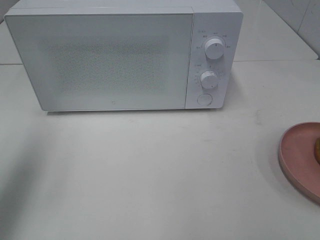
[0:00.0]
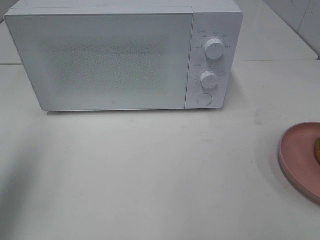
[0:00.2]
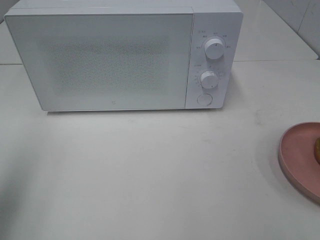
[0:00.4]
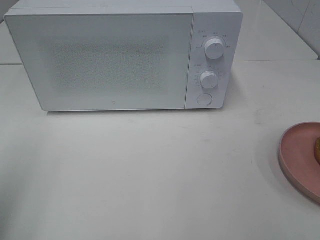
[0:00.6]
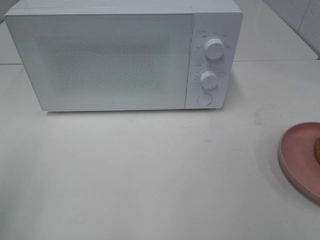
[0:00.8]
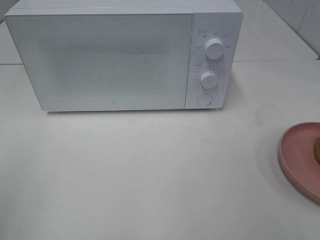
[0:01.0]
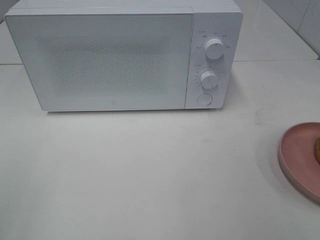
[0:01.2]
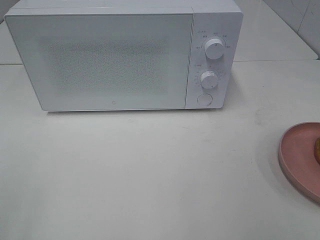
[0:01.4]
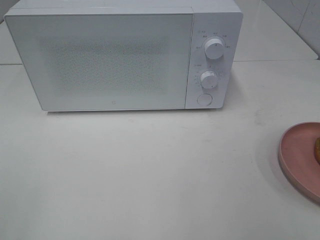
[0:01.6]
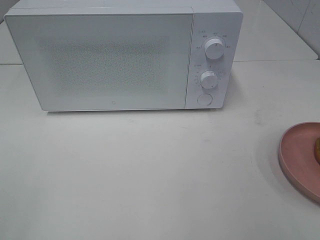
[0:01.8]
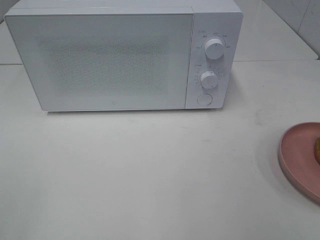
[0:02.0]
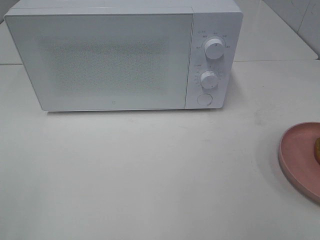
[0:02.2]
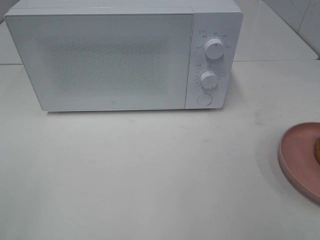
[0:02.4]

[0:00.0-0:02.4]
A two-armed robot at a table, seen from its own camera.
Task of the whole recording: Heat the burger.
0:00.0 to 0:01.2: The left gripper moves backward, some 20 cm.

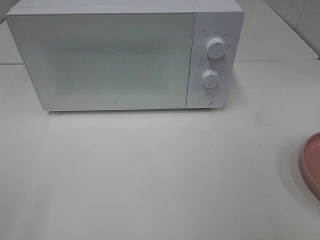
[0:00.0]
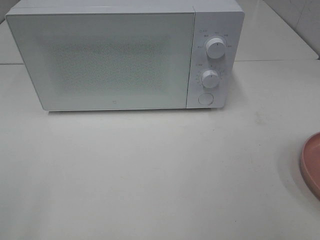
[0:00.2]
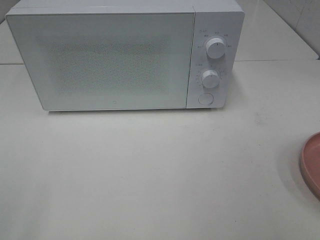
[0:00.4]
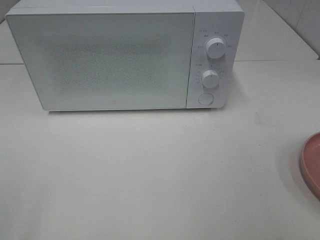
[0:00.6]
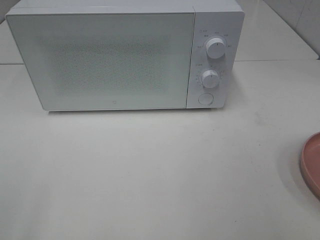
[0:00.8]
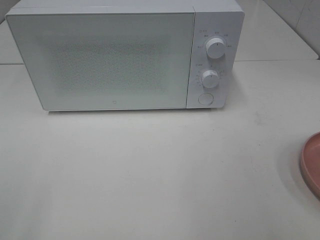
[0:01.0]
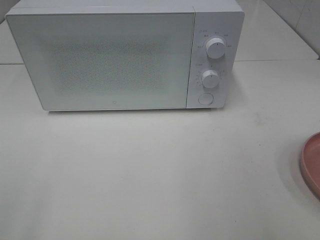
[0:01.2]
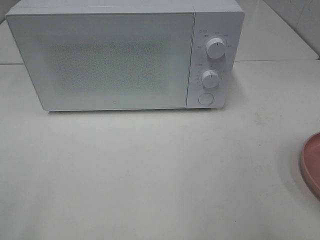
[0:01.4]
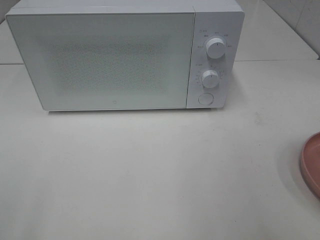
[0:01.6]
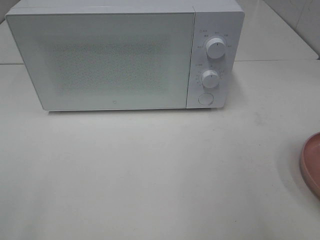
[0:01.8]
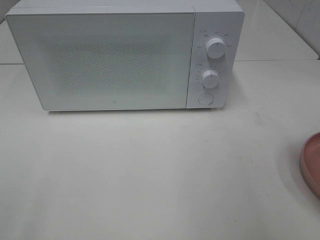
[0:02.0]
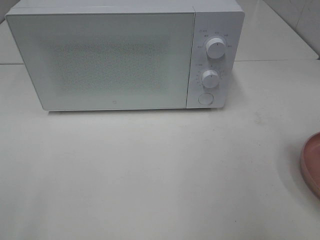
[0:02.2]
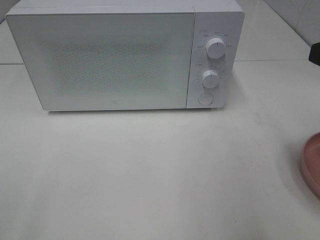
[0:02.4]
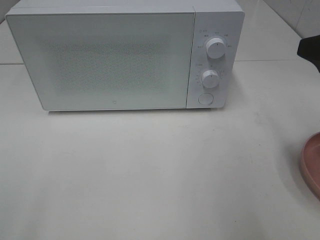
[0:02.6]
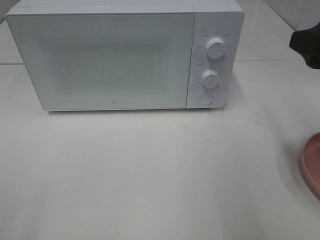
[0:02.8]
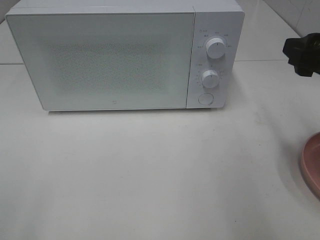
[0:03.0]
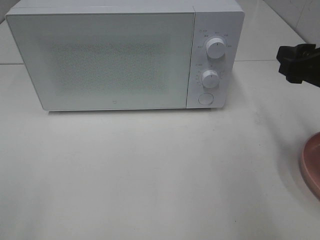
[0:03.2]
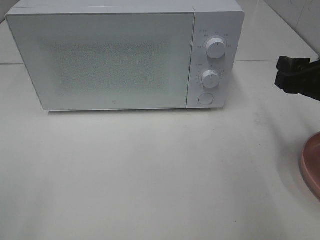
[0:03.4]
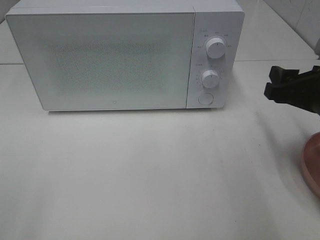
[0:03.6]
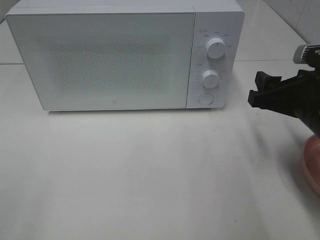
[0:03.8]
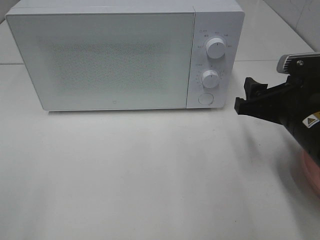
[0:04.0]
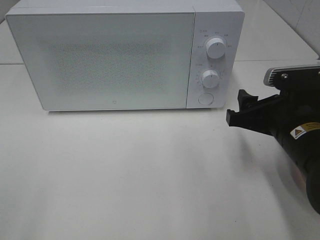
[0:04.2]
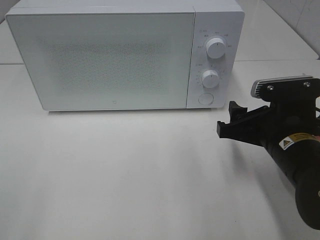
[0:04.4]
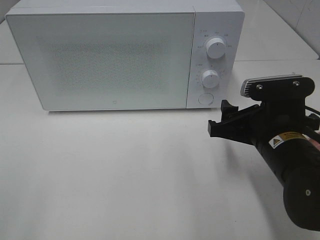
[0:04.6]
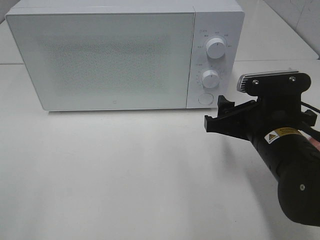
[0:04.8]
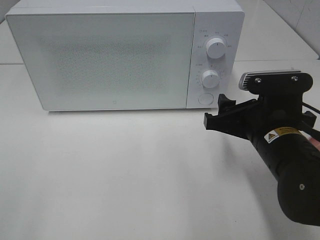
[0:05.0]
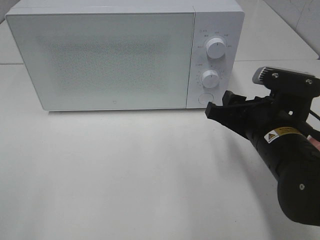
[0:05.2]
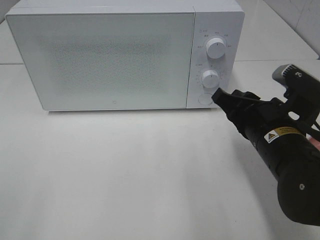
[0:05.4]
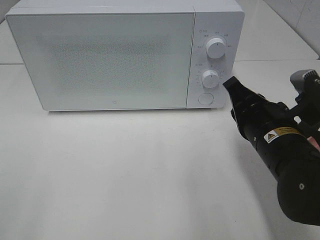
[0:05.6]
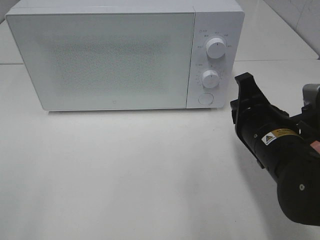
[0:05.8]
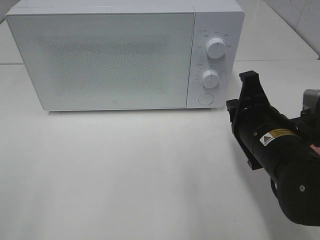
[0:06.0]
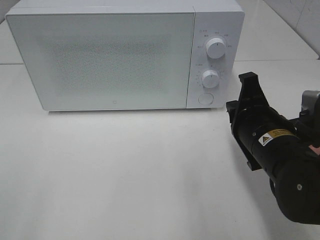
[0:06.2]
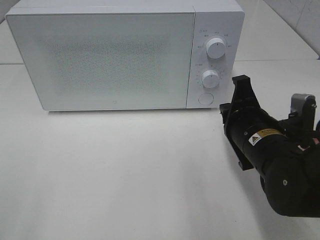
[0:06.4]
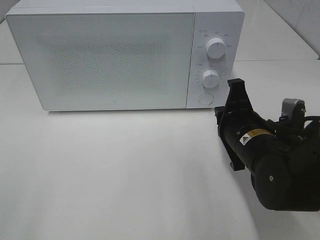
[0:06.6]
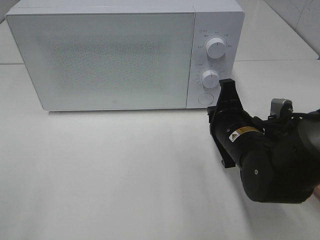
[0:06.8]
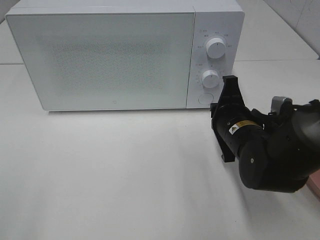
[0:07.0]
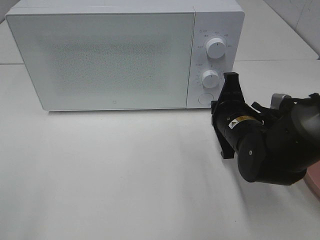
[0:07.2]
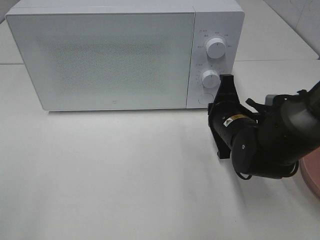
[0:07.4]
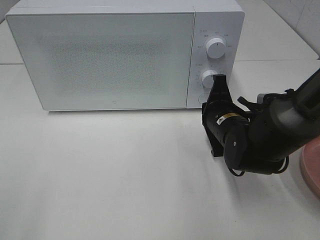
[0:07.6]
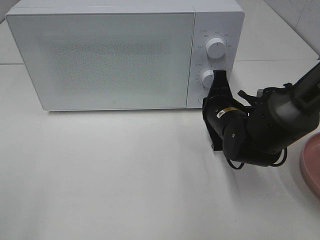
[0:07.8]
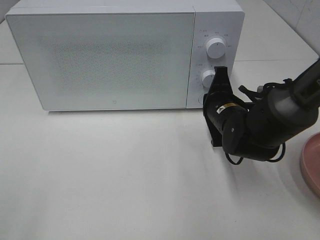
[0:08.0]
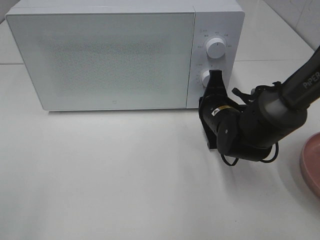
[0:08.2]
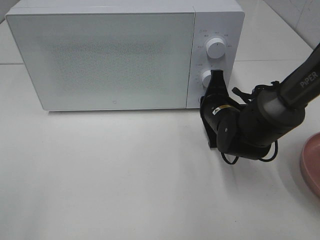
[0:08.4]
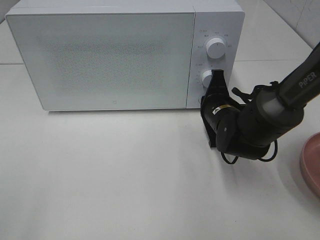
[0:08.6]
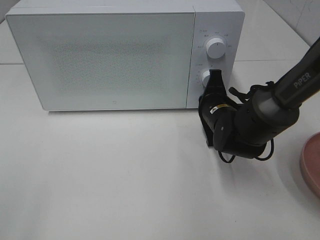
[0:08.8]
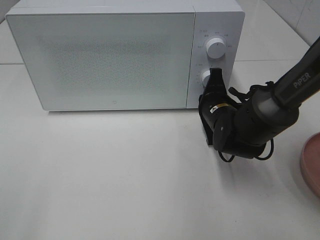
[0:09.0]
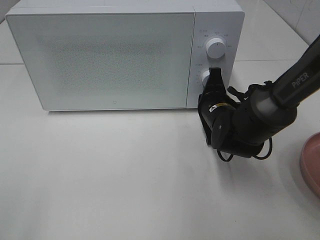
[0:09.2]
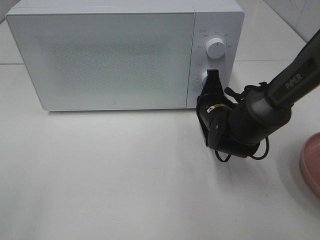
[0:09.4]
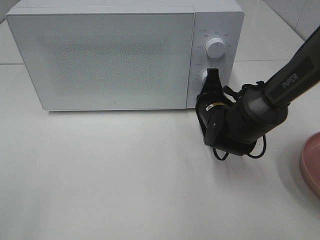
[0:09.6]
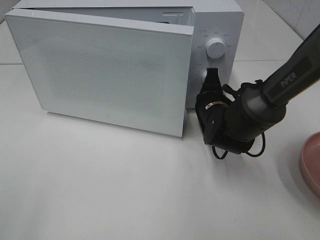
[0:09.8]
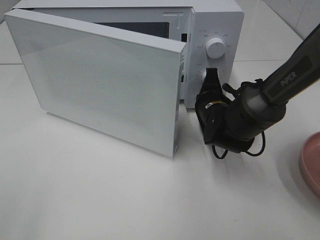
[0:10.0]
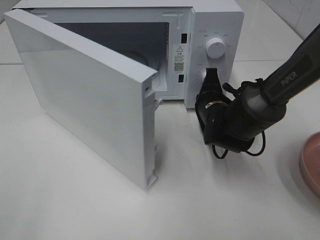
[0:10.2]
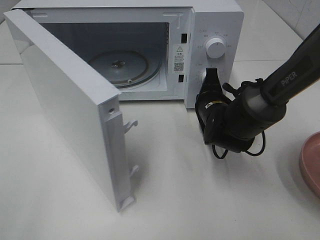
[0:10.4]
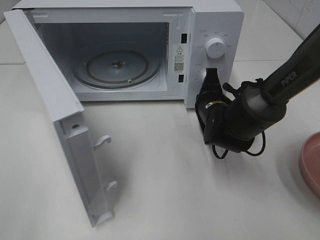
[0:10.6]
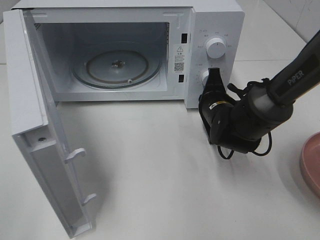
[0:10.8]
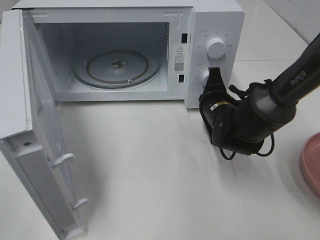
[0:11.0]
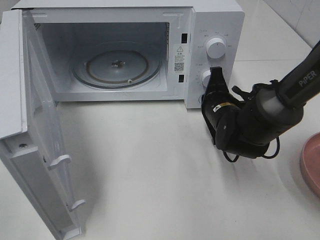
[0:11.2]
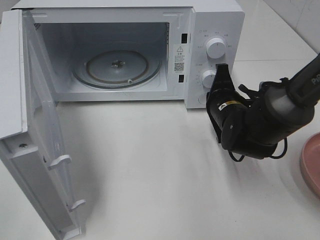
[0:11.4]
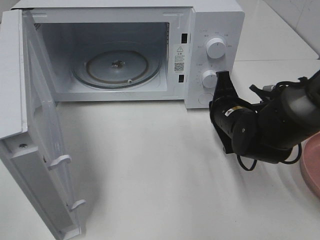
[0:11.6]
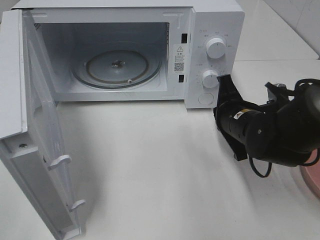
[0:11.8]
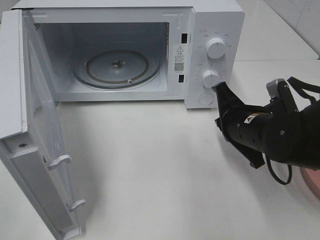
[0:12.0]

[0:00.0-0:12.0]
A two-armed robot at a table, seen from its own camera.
Task of the whole recording: Heat the burger.
Step, 0:00.0 to 0:11.2: Right hand: press the switch.
0:01.6 to 0:03.0: The right gripper moves forward and downward, approximately 15 cm.
0:03.0 to 0:04.4: The right gripper moves downward and to the left, roughly 15 cm.
0:04.4 to 0:06.0: The right gripper closes its fingers.
0:06.0 to 0:07.6: The right gripper moves forward and downward, roughly 10 cm.
0:07.6 to 0:09.0: The grippers make only small movements.
0:10.4 to 0:12.0: The right gripper heads backward, covering about 10 cm.

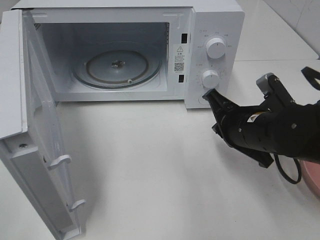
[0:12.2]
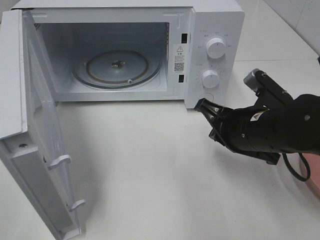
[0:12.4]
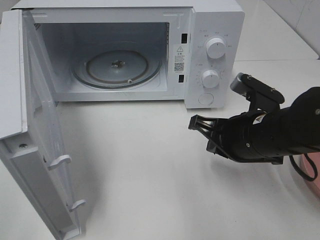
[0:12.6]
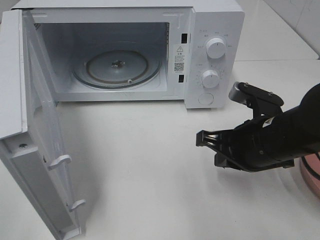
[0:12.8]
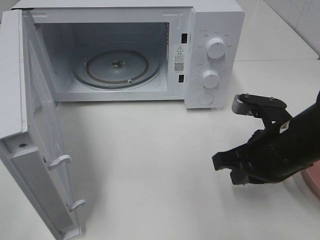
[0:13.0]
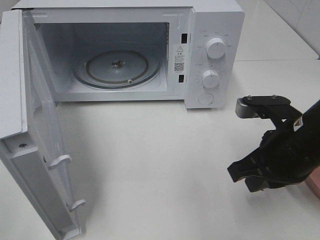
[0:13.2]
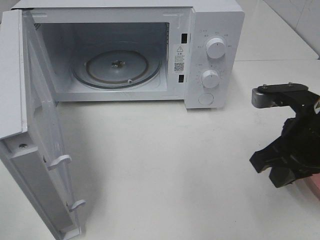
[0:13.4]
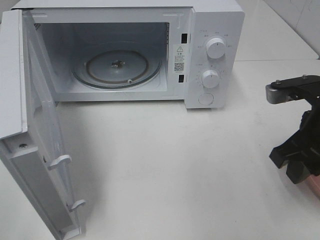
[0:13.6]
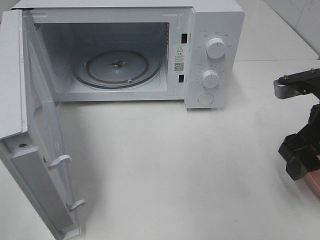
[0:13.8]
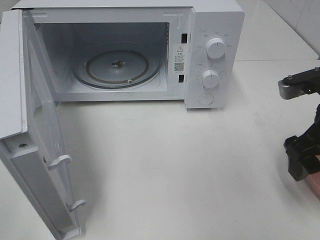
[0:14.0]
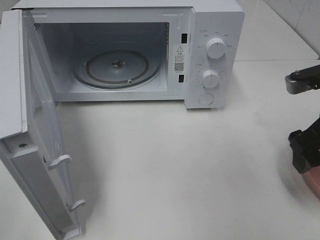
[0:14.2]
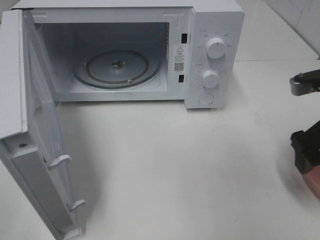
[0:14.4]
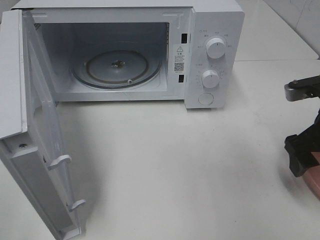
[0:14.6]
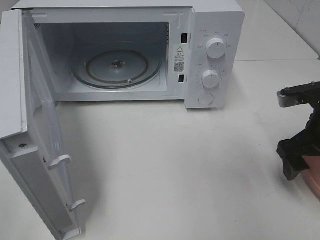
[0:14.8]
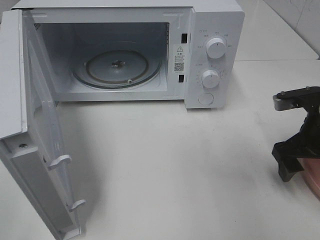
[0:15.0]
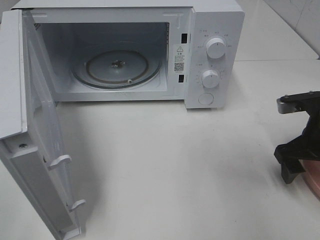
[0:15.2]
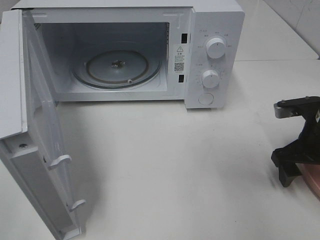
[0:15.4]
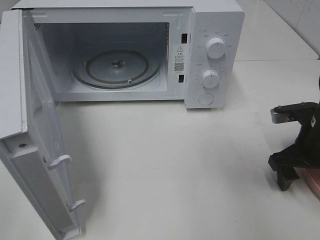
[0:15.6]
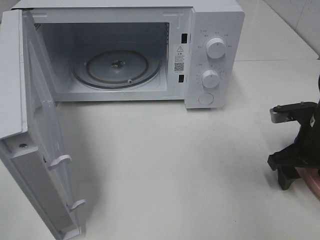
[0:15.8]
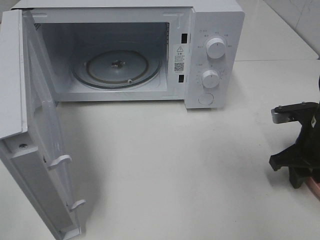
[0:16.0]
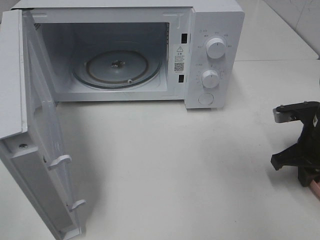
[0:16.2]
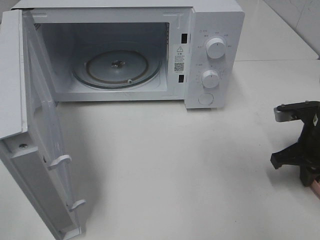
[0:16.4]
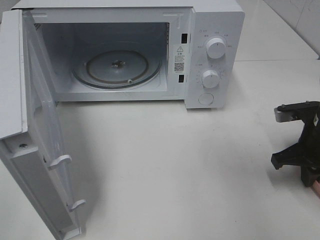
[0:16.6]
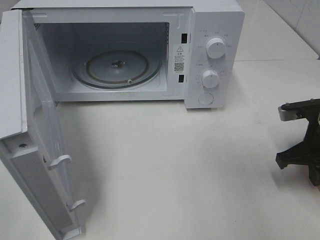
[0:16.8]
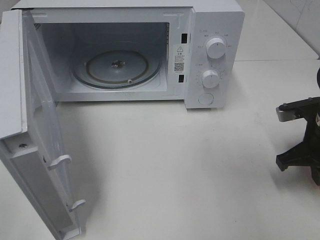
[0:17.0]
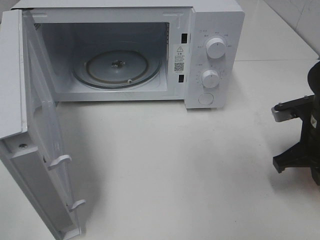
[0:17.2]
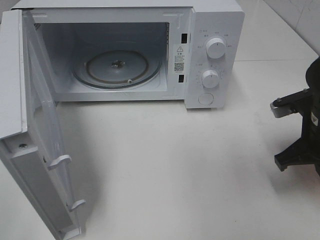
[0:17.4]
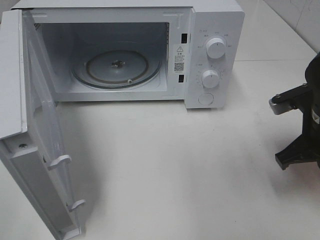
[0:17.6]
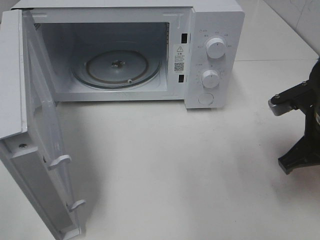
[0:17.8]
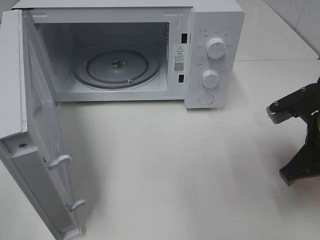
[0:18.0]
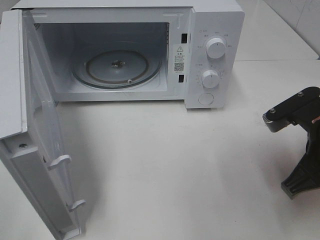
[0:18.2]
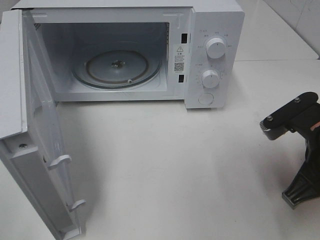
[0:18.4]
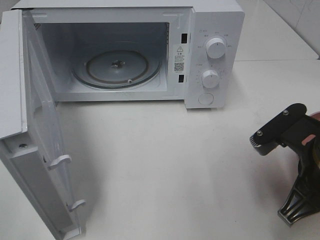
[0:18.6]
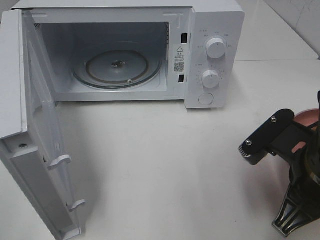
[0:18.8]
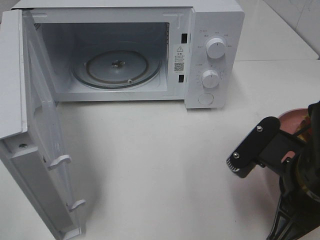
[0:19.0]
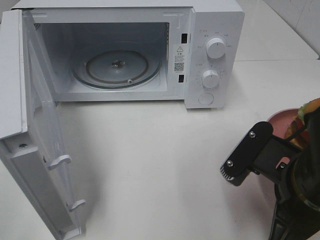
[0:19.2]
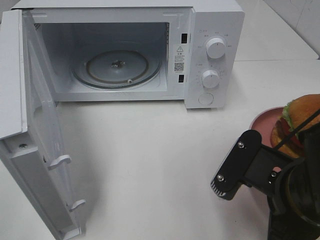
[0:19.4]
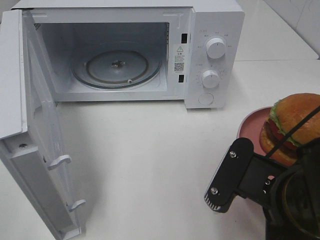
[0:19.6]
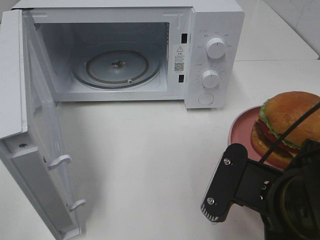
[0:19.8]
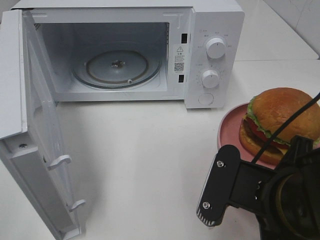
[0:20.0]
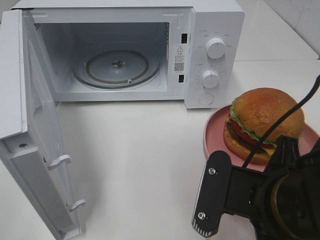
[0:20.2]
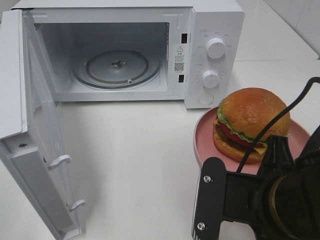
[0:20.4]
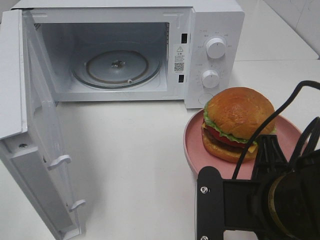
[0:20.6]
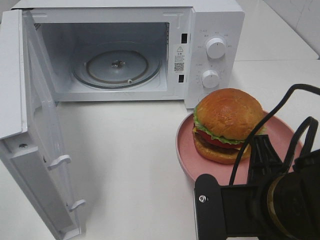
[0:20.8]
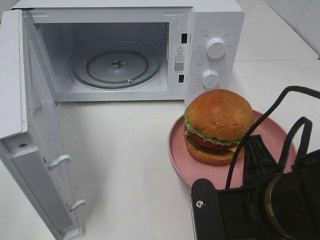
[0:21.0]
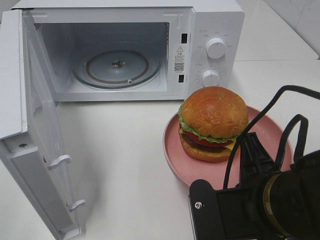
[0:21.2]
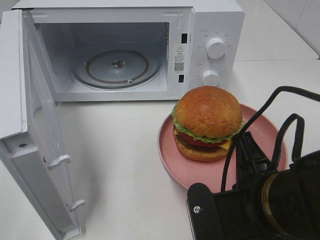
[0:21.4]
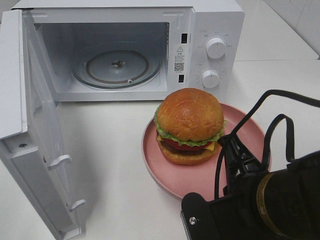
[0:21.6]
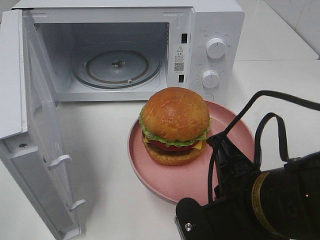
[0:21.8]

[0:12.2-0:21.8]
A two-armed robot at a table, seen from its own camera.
Task of the whole recording: Heat the burger.
Step, 0:12.2 to 0:16.4: Right hand: grab the plate with the hamburger.
0:12.2 to 0:13.8: The right gripper shifts some 10 cm to the right and upward, and opens up.
0:13.8 to 0:15.4: The right gripper travels downward by approximately 10 cm.
0:15.4 to 0:17.0: The right gripper closes up.
0:17.0 to 0:18.6: The right gripper is displaced backward and to the left by approximately 10 cm.
0:18.6 to 0:20.2: The right gripper is displaced to the left and backward by approximately 10 cm.
